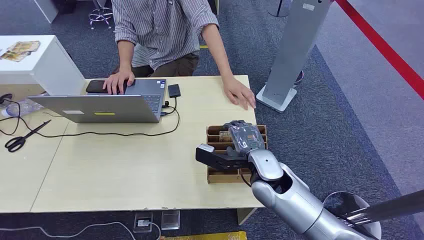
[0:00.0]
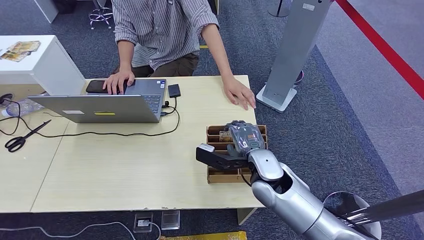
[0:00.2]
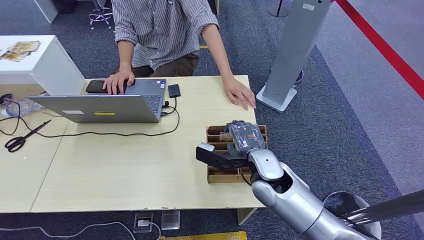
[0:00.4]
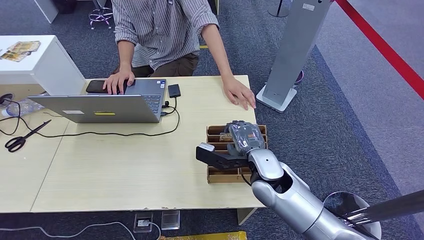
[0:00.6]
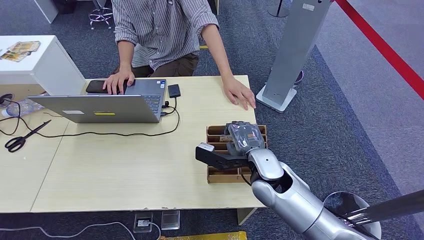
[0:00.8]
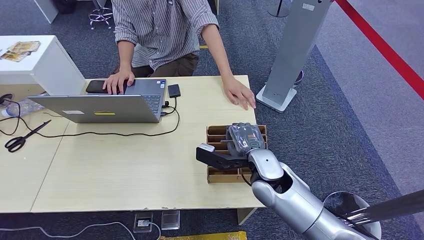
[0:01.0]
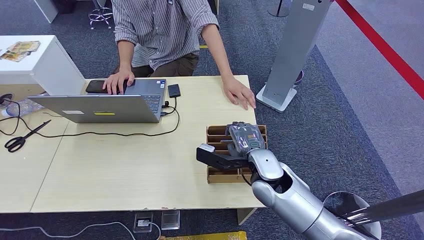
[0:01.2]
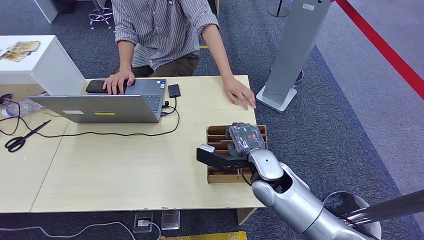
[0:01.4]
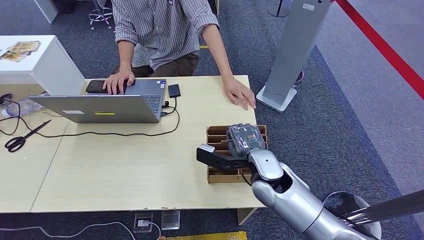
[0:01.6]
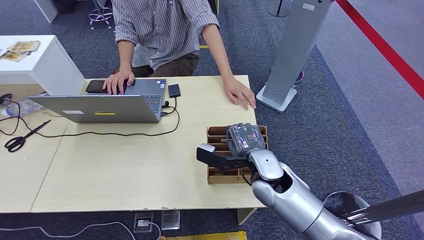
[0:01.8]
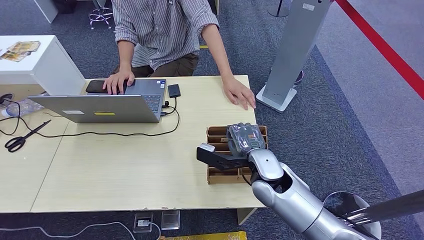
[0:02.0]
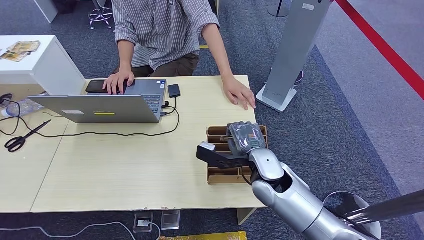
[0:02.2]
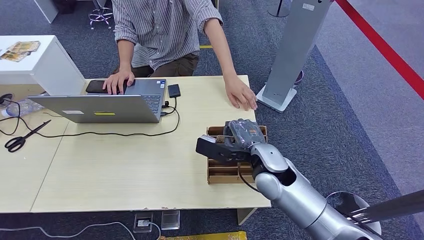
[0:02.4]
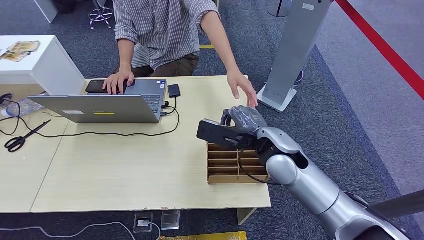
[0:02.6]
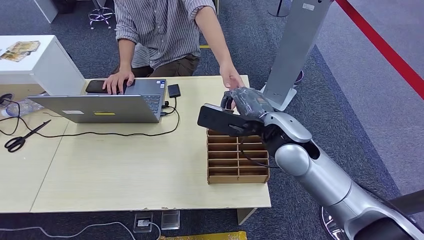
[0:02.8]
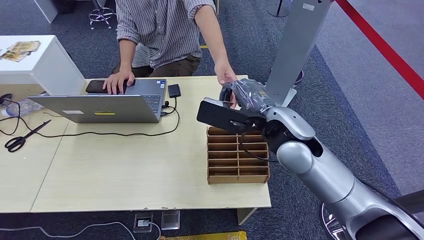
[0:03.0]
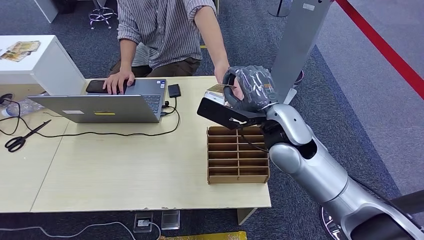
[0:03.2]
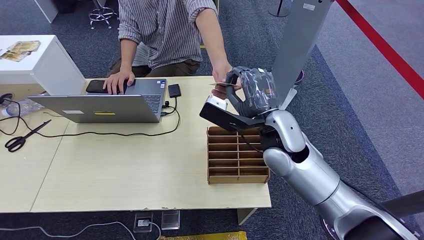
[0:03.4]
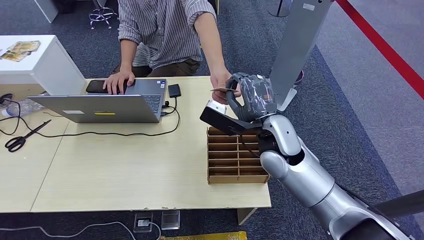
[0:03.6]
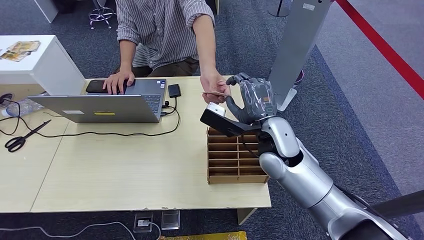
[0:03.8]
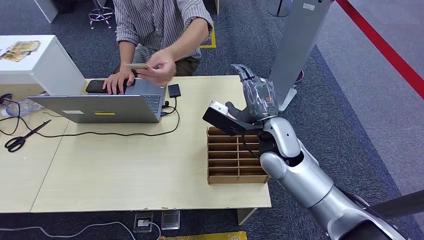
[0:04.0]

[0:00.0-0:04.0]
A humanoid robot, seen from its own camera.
Step, 0:00.0 to 0:02.4: Pick up the room card from the card holder.
Step, 0:03.2 to 0:04.0: Hand the room card to the target.
0:01.4 to 0:02.6: The right hand moves upward, about 5 cm.
